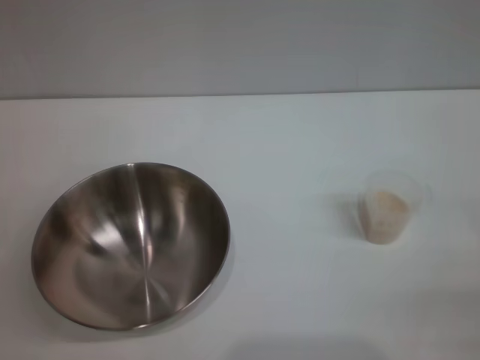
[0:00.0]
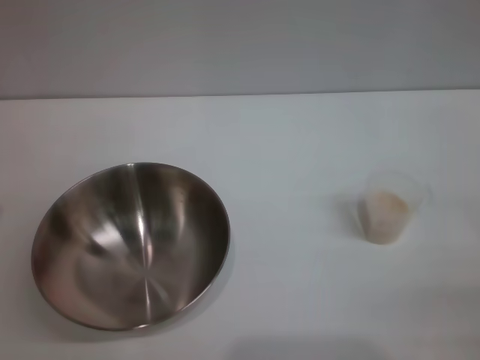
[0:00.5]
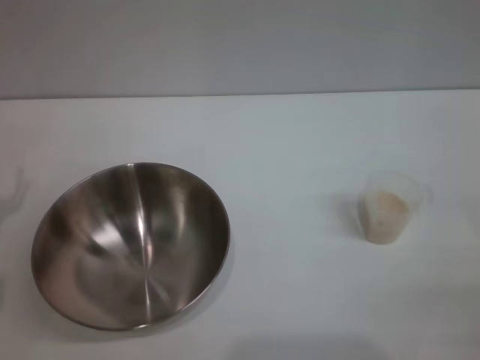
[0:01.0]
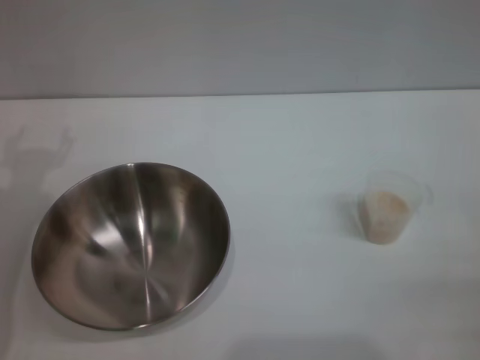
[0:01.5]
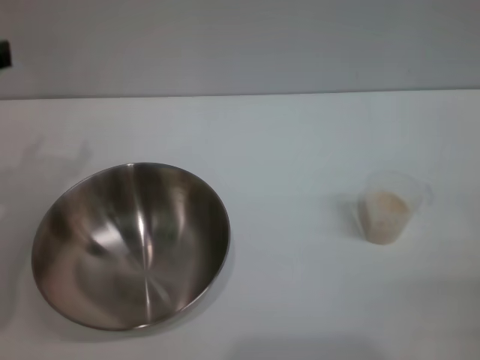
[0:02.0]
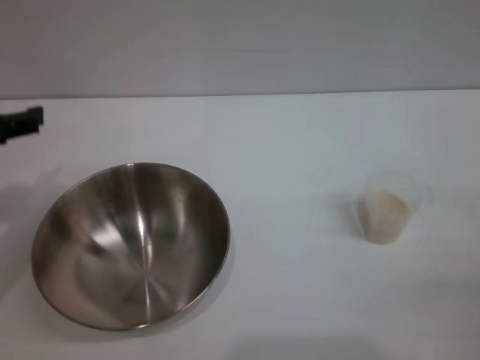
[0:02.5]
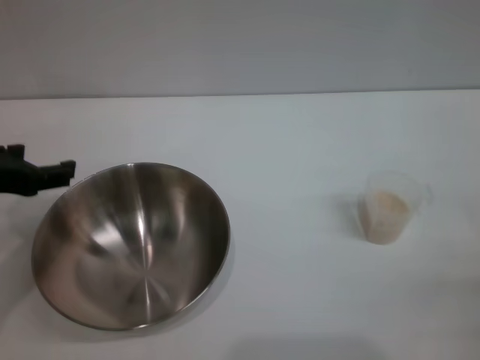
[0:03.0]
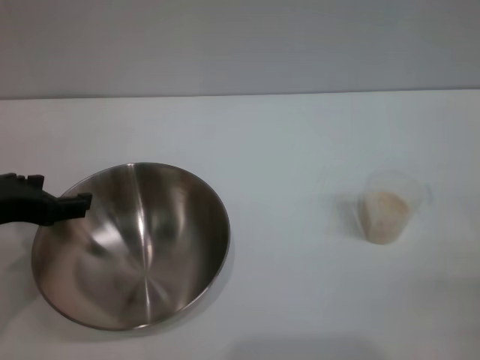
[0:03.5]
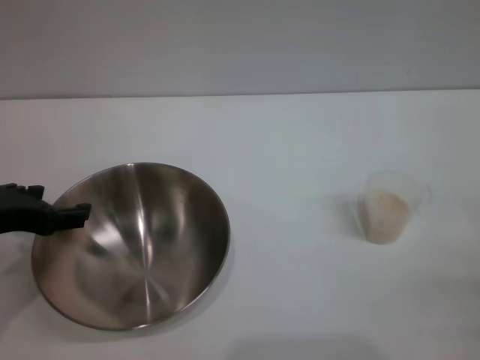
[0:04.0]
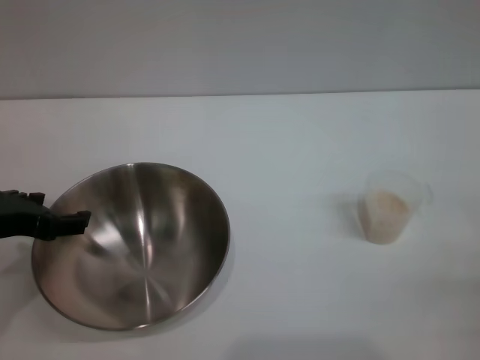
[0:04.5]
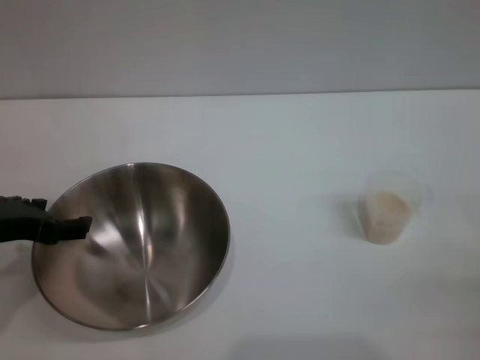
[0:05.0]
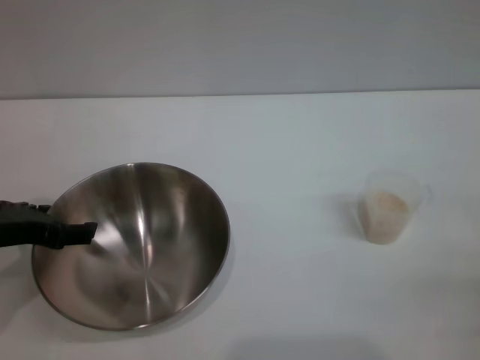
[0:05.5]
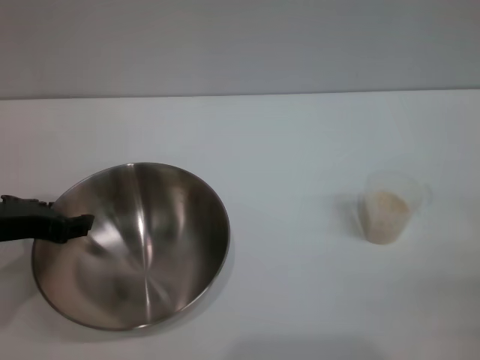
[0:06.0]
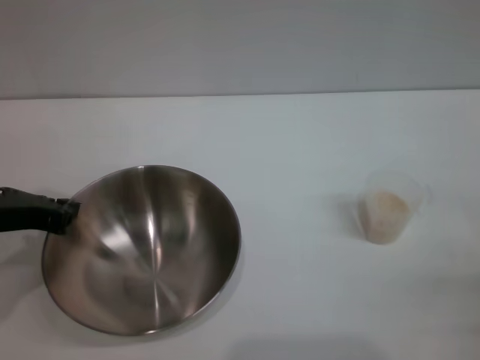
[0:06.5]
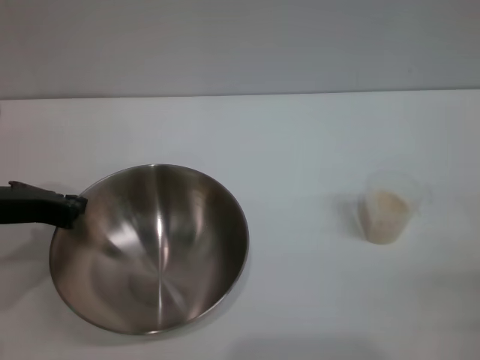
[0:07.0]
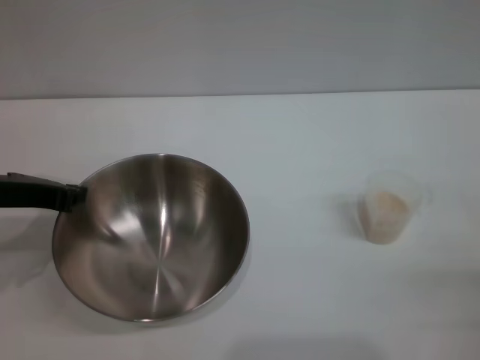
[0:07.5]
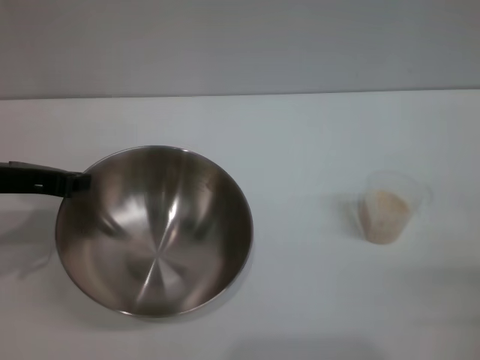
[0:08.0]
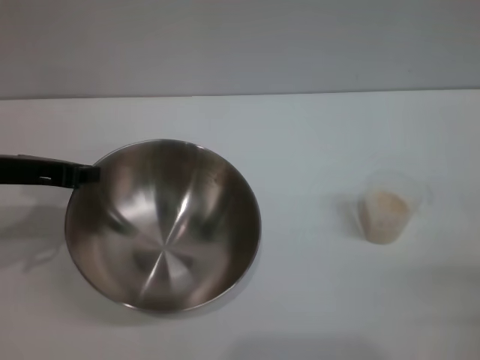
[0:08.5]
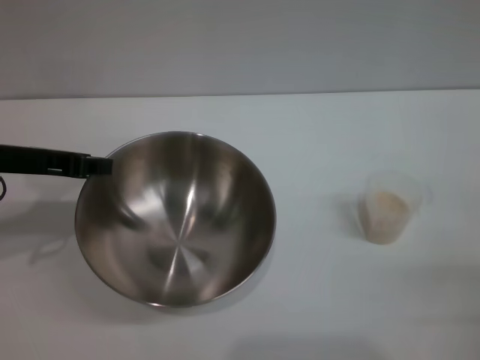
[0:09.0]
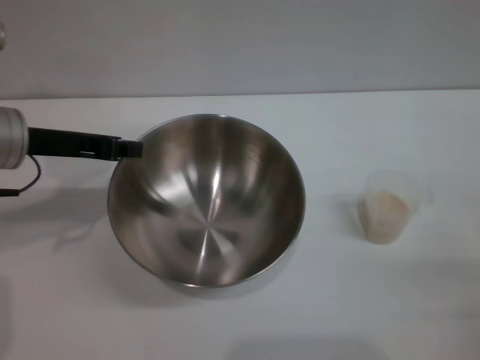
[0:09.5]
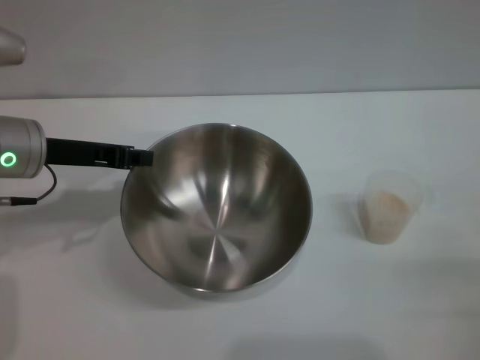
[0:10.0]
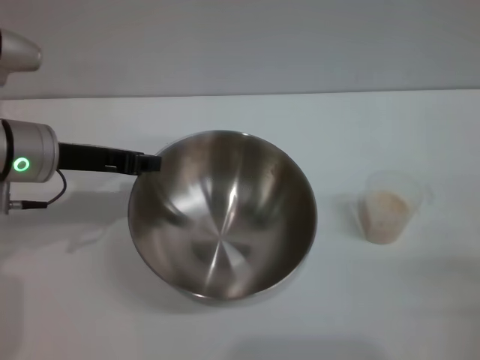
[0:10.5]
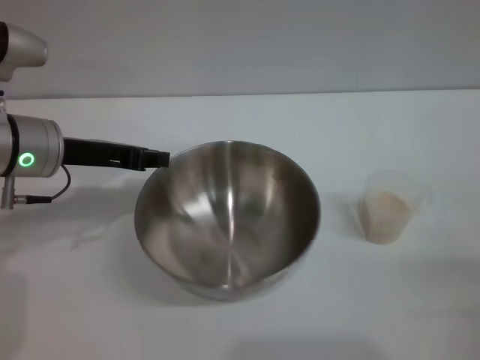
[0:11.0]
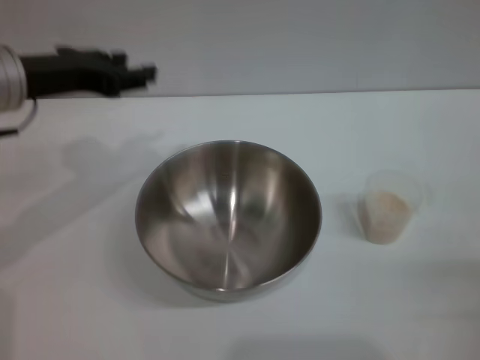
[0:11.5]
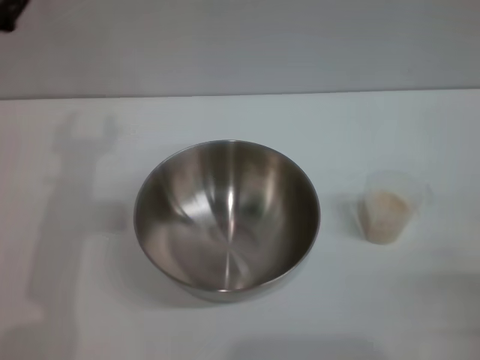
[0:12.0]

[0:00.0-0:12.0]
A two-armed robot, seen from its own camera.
Task of the whole recording: Place the bowl in the middle of the table with one hand and pour the rice from the grain cup into it with the other hand.
Step, 0:00.0 to 0:08.5: Pick up the bowl with the left gripper.
Step, 0:09.0 to 0:11.0: Place the bowl in the center of view with the left gripper.
0:02.0 to 0:04.0: The left gripper heads downward, covering roughly 5 cm.
0:04.0 to 0:06.0: The grippers make only small movements.
0:06.0 to 0:08.0: The left gripper closes.
0:08.0 to 0:10.0: The left gripper shifts by roughly 5 cm.
0:10.0 to 0:12.0: The left gripper heads backward, covering roughly 5 cm, and opens up.

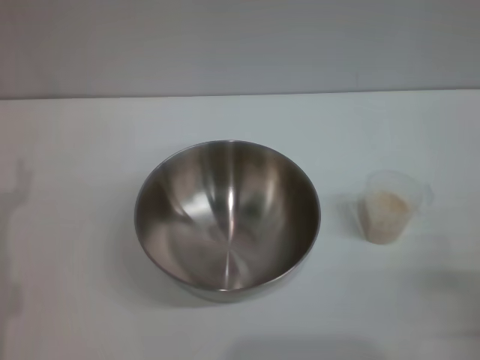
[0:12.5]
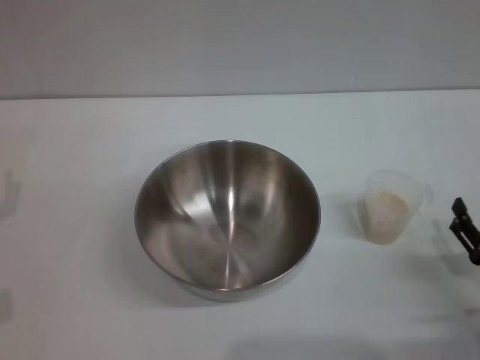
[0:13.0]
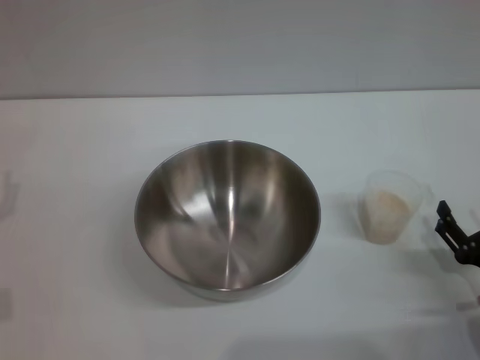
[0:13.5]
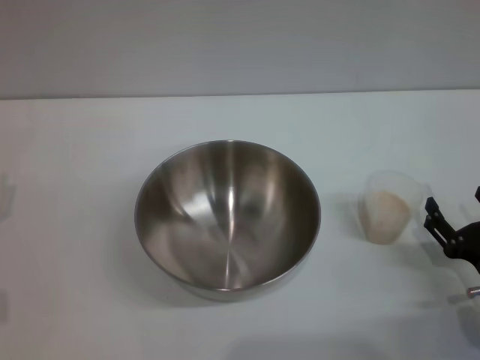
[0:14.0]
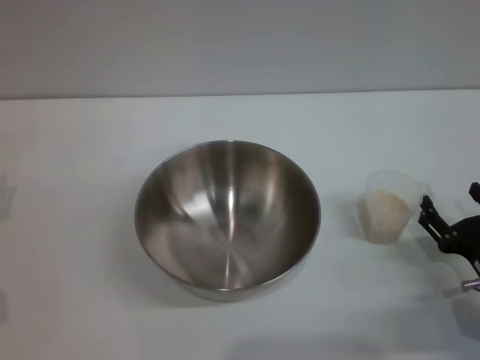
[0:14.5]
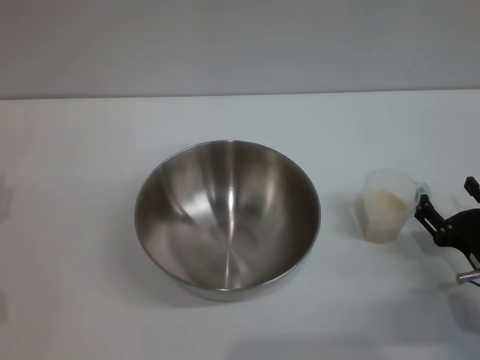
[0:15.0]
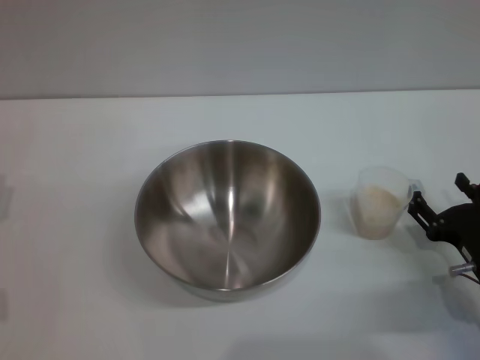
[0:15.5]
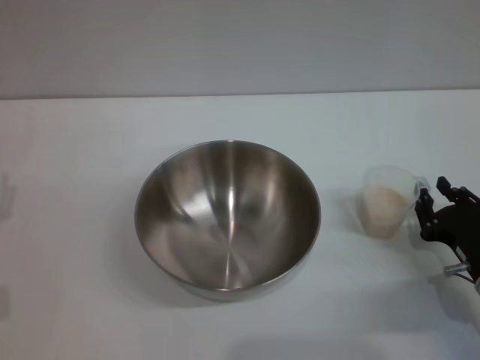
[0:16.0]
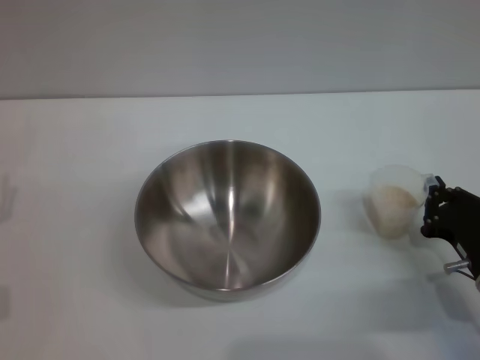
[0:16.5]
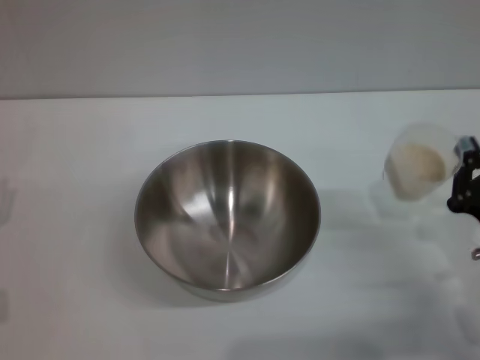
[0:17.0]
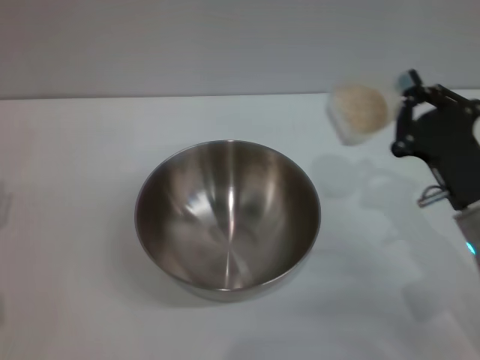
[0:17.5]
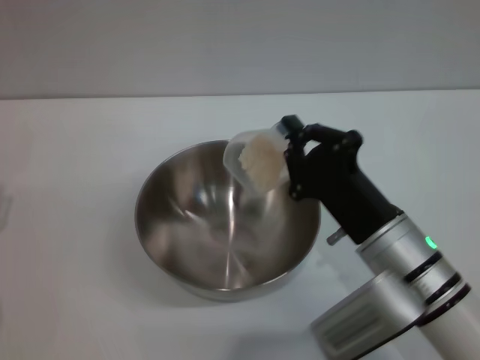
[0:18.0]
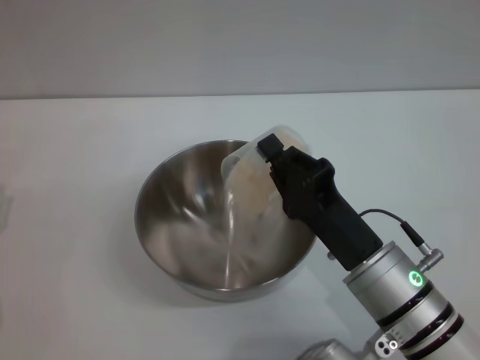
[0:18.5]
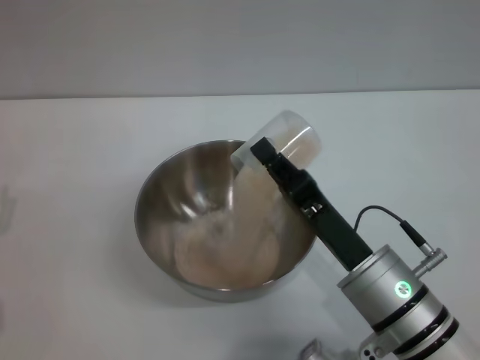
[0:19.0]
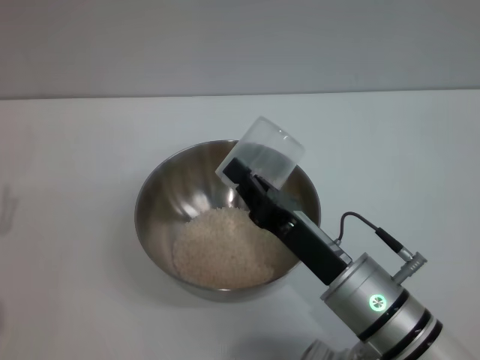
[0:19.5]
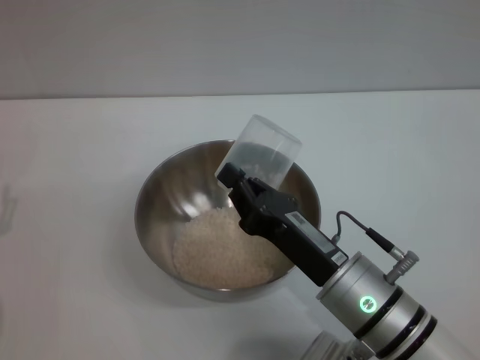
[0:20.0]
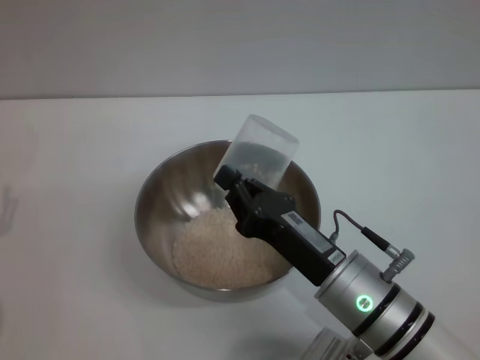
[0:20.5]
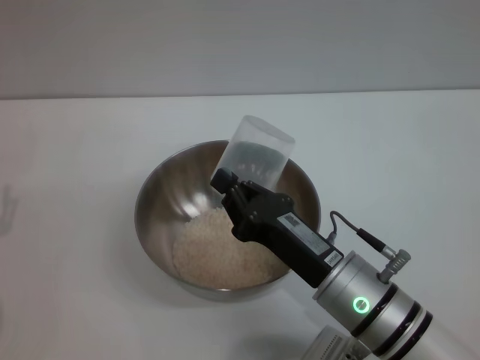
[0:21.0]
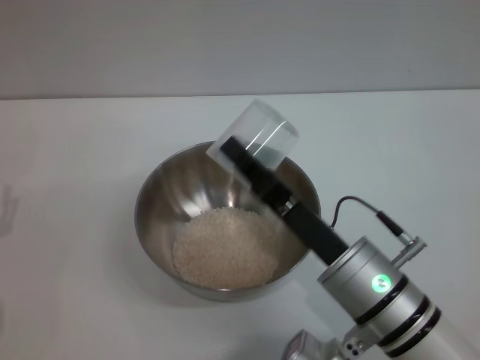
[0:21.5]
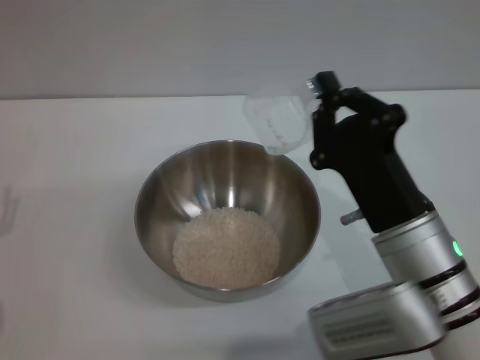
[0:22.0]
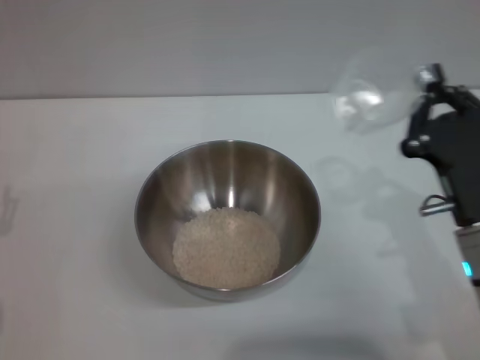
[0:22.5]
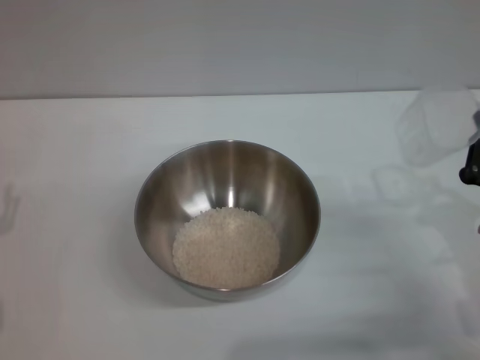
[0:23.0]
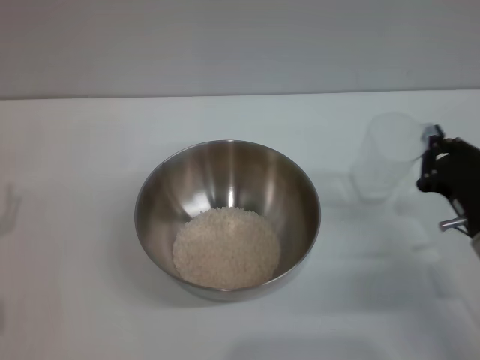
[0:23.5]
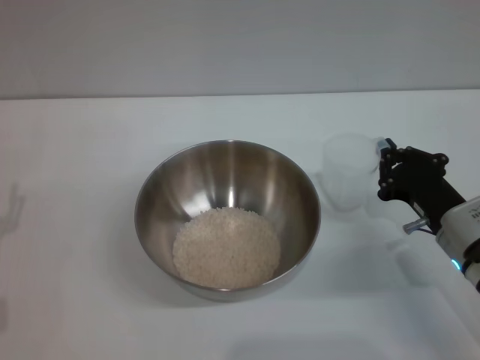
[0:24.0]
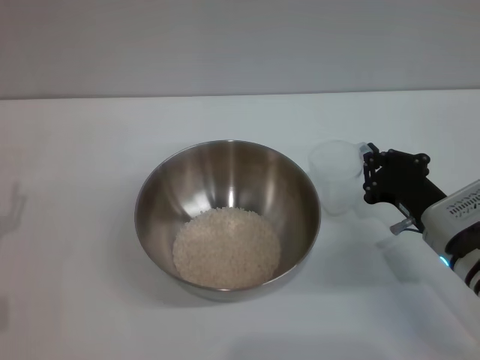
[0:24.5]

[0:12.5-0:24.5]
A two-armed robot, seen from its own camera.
Task of the whole recording: Place the bowl in the middle of the table with one hand and pour the rice from the grain cup into it with the other hand.
Step, 0:12.5 to 0:17.0: Pick up the cup with rice in it with the right gripper.
Step, 0:17.5 to 0:21.5: Pour the rice from the cup into the bowl with the right gripper.
0:12.5 to 0:14.5: The right gripper goes roughly 5 cm forward.
0:14.5 to 0:16.5: The right gripper closes up.
0:16.5 to 0:18.5: The right gripper heads to the left and upward, covering some 15 cm.
0:20.5 to 0:22.5: The right gripper moves to the right, about 10 cm.
0:22.5 to 0:24.5: The right gripper travels forward and downward by approximately 10 cm.

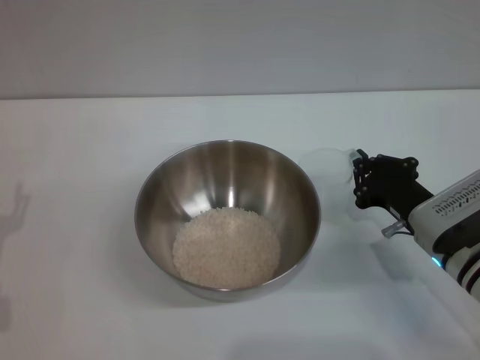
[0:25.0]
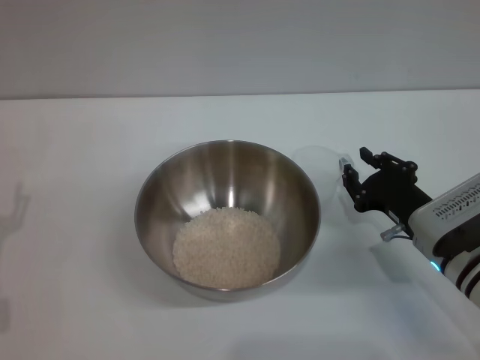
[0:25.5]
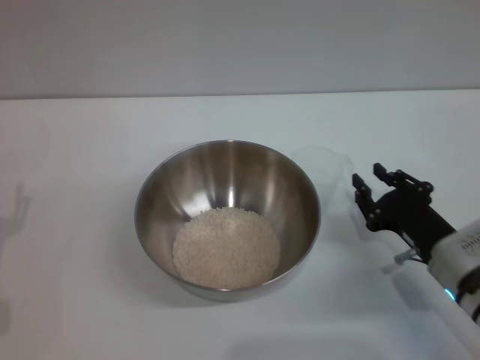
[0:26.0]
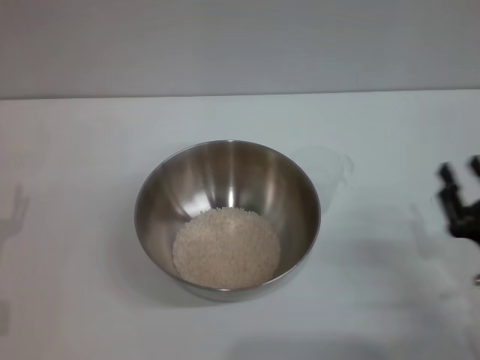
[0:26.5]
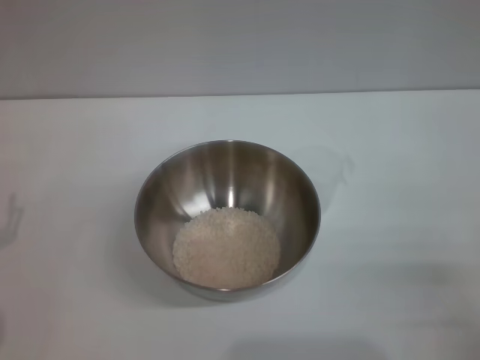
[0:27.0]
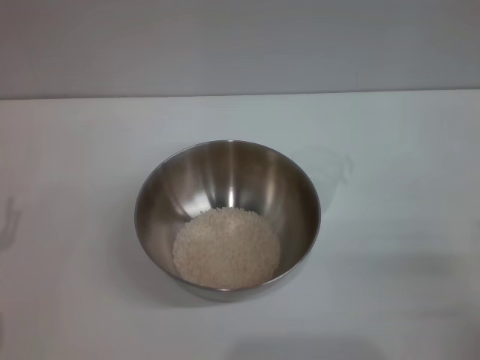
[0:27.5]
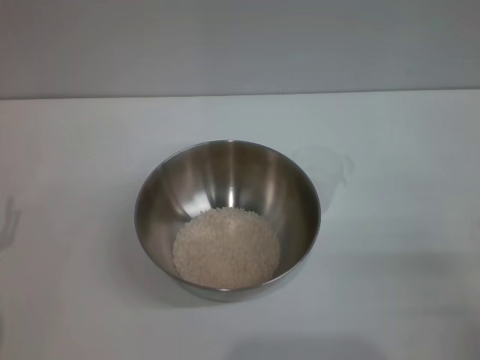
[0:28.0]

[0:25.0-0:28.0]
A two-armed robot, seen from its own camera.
Task of the whole recording: Place the bowl in the middle of the table with one hand and pour the rice from the grain cup into it with the other hand.
0:25.0 to 0:26.5: The right gripper heads backward, covering some 10 cm, and opens its fingers.
0:26.5 to 0:28.0: The right gripper shifts by roughly 5 cm, and opens.
